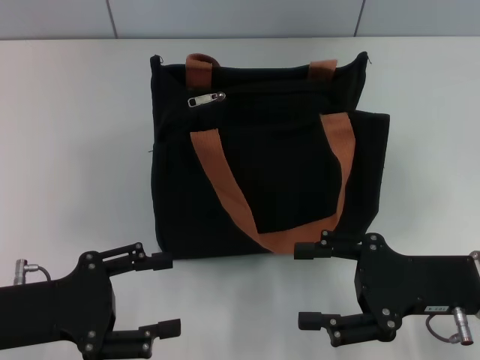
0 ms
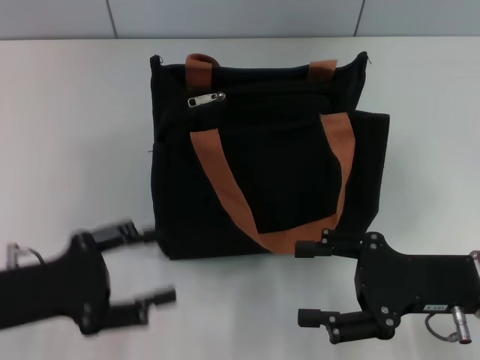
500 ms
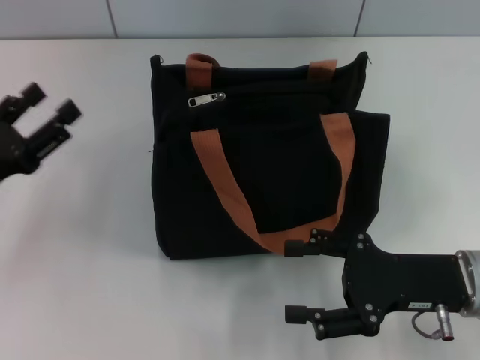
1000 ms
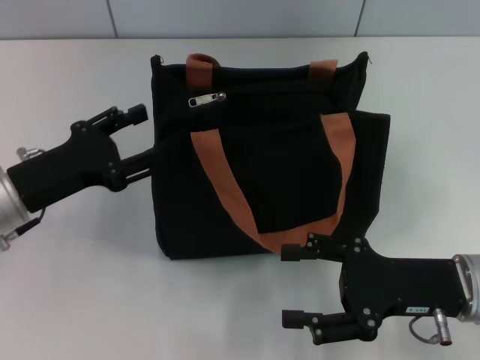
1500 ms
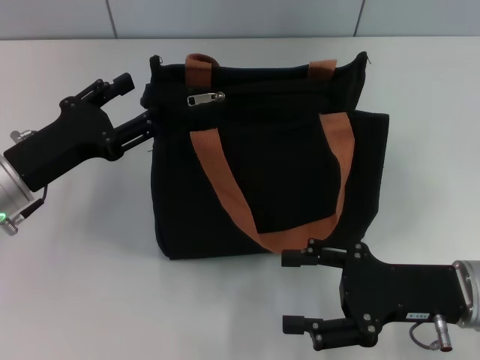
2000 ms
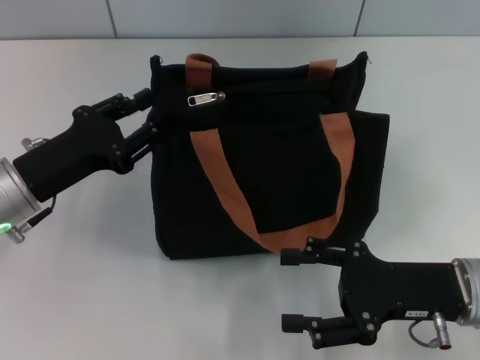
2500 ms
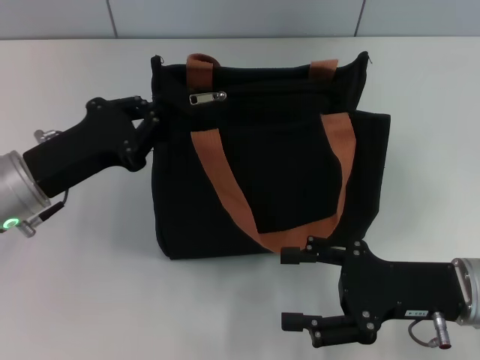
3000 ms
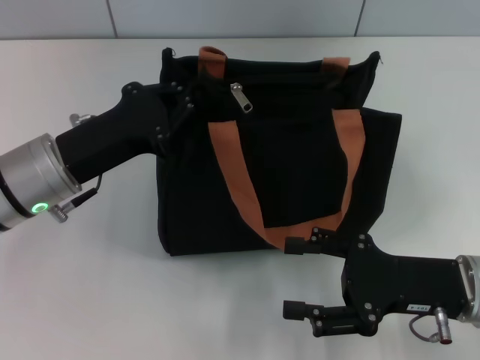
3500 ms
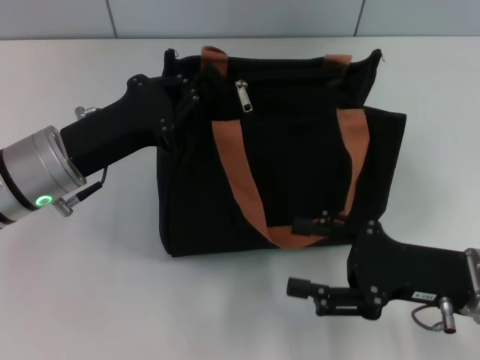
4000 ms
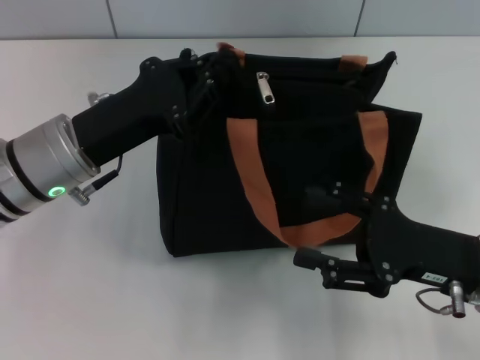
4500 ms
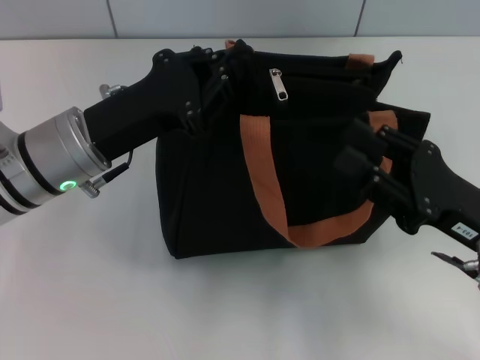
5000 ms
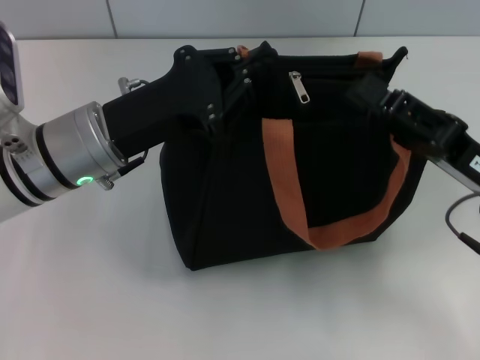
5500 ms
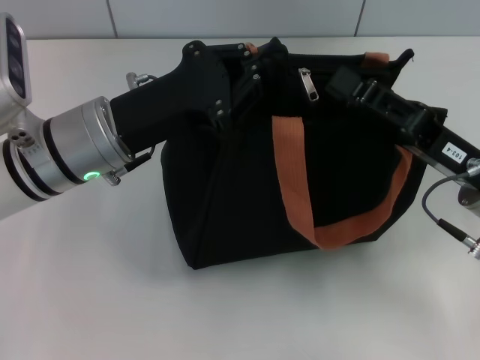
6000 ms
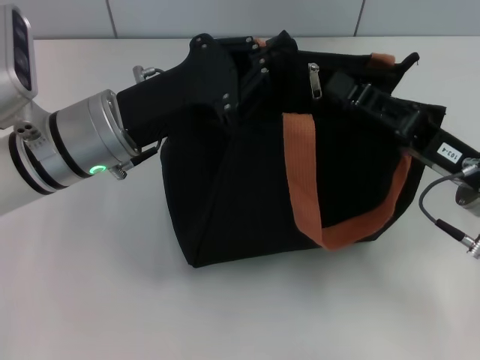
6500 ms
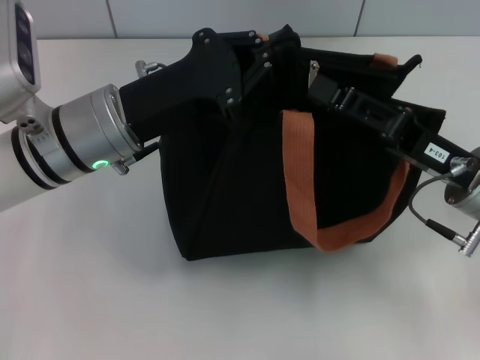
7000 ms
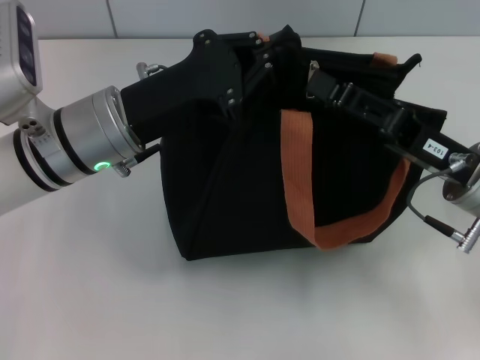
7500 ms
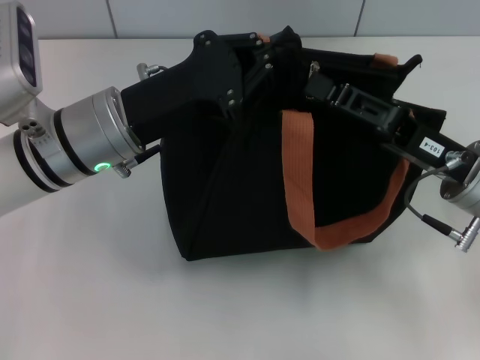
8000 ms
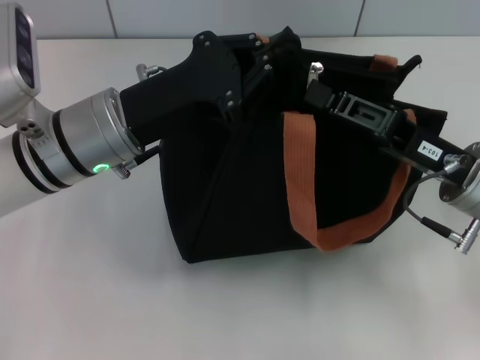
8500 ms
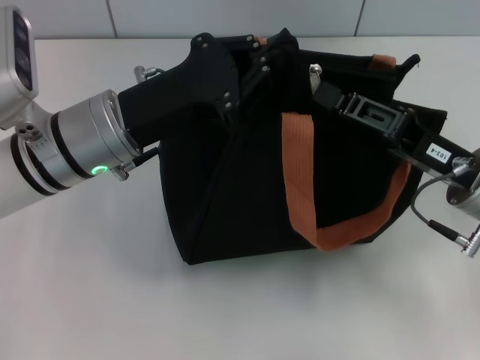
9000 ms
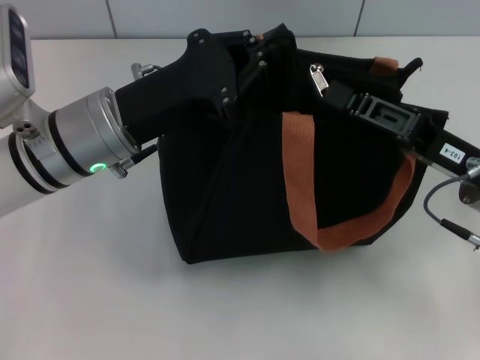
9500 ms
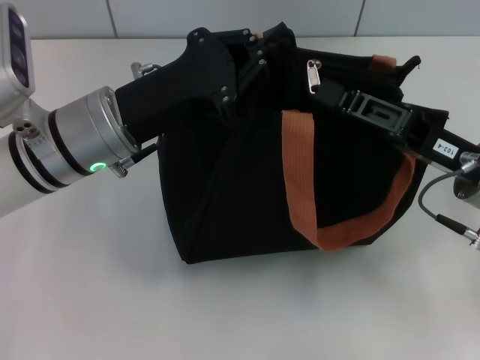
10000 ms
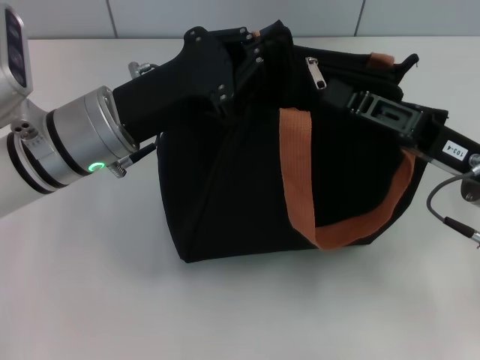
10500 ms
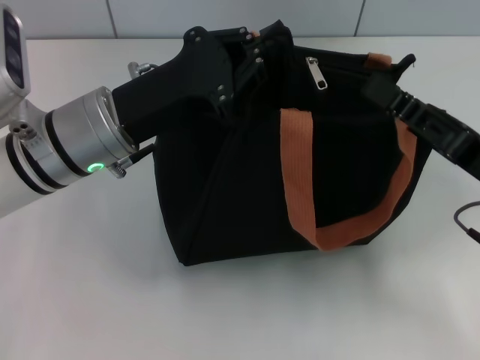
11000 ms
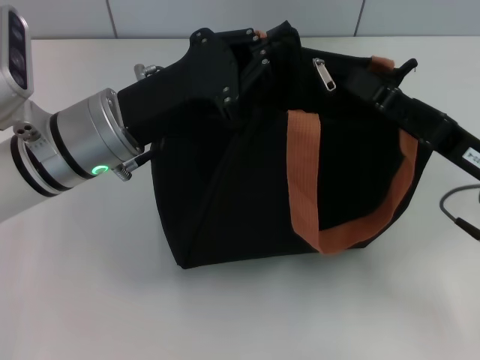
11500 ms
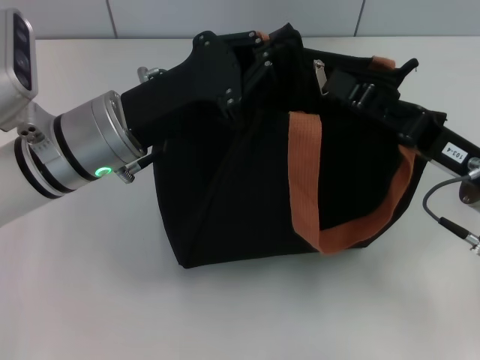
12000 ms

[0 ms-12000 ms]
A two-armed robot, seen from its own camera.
0 ms to 2000 ms: The left gripper is displaced forward by roughly 10 cm.
2000 ms to 4000 ms: The left gripper moves to the right, some 5 cm, and closes.
4000 ms to 6000 ms: The left gripper ends up about 5 cm from where it was. The right gripper ends up approximately 5 cm from where it was, and closes up.
6000 ms to 8000 ms: There are only small adjustments of the grippers.
8000 ms to 10000 ms: The right gripper closes its fingers.
10000 ms to 12000 ms: The right gripper opens its fingers.

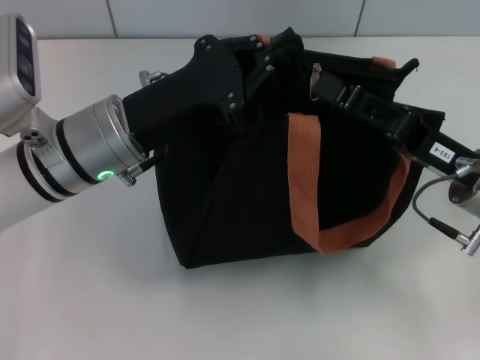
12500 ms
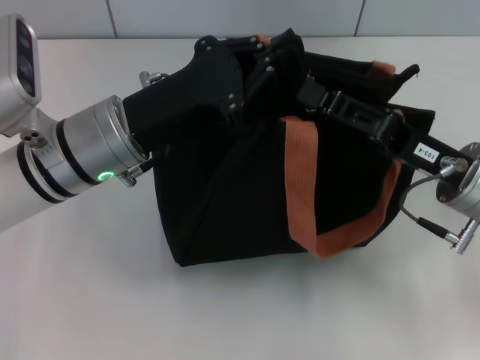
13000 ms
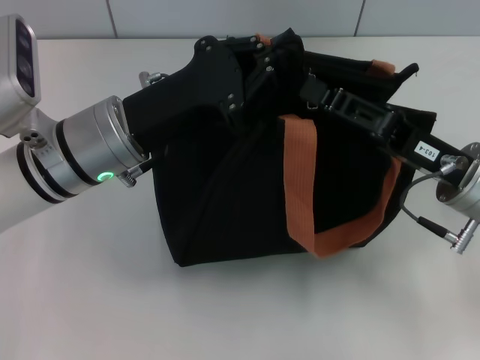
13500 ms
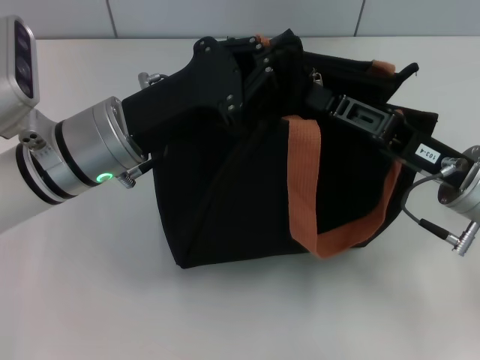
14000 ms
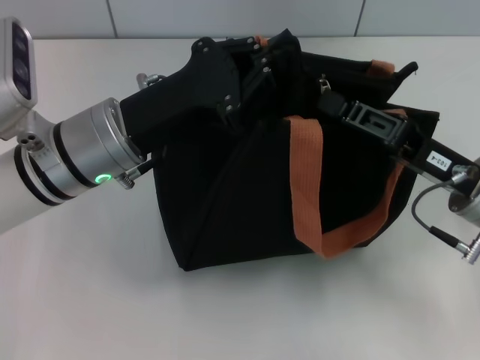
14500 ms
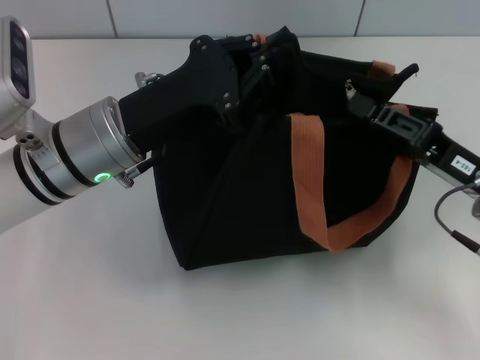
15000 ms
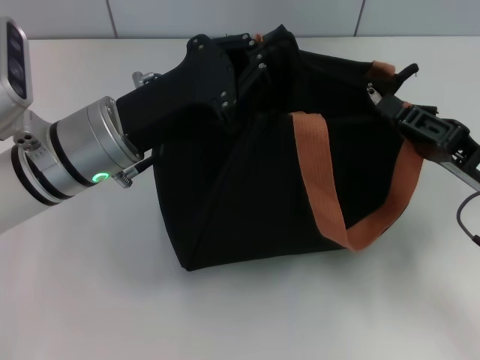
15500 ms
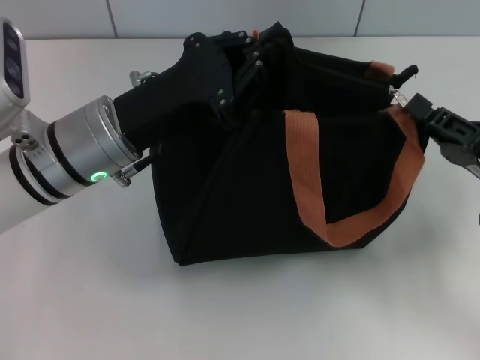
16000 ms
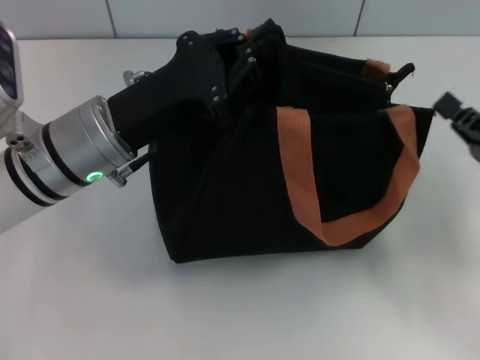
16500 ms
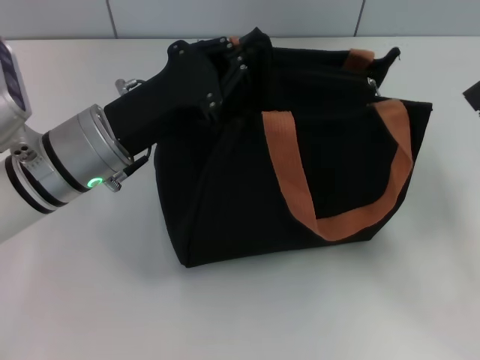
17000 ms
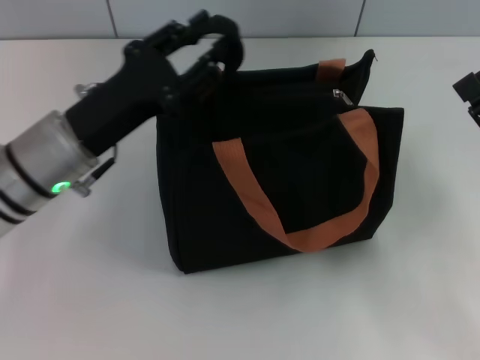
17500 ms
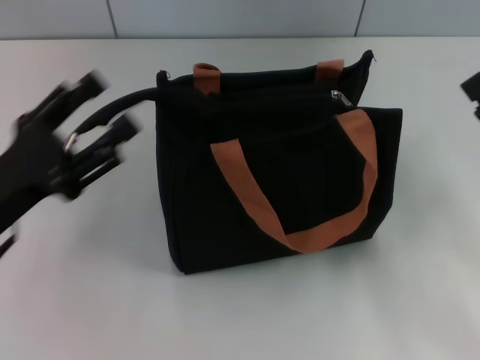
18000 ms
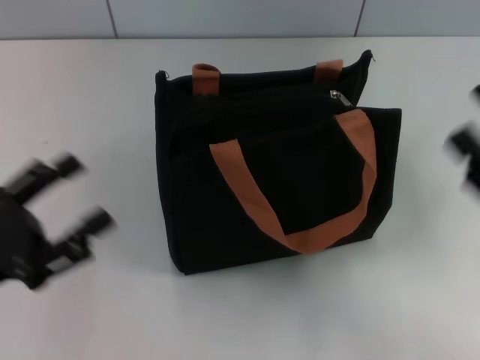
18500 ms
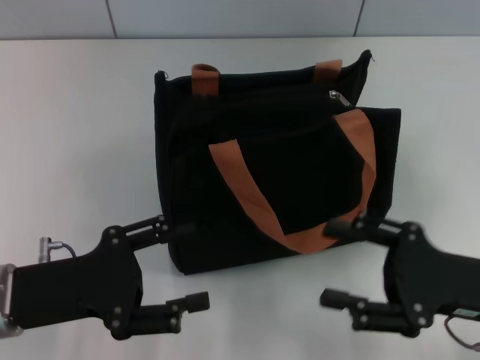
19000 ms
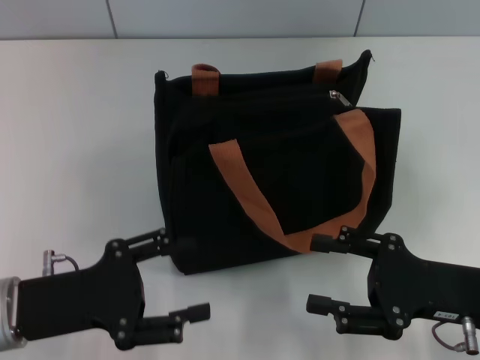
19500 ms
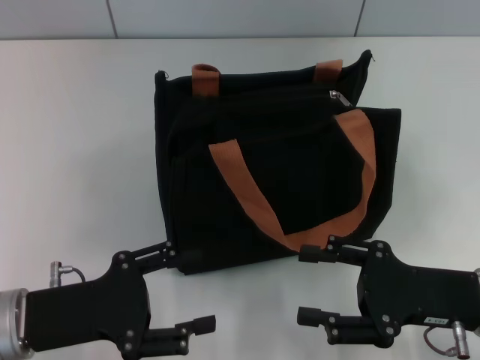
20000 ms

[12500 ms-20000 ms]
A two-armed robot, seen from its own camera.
Step, 12500 ms to 16000 ms: Pull up the zipper with your right hand.
Step, 16500 ms to 17000 ms: Grab the zipper with your left hand.
12500 ms to 14500 ms: The right gripper closes its fingers.
14500 ms to 16500 ms: The right gripper travels to the right by some 10 cm.
16500 ms to 18000 ms: The right gripper opens up. The left gripper travels to the left and backward by roughly 15 cm, and opens up.
18000 ms to 20000 ms: The right gripper goes about 5 cm to the left. The left gripper ends up approximately 5 cm from where it was.

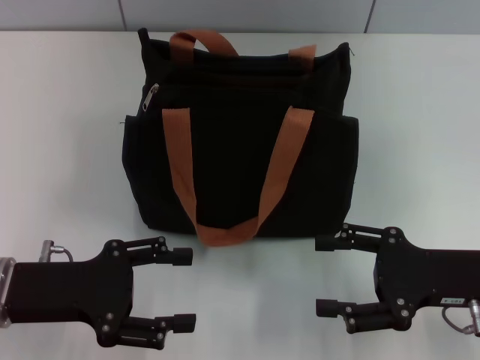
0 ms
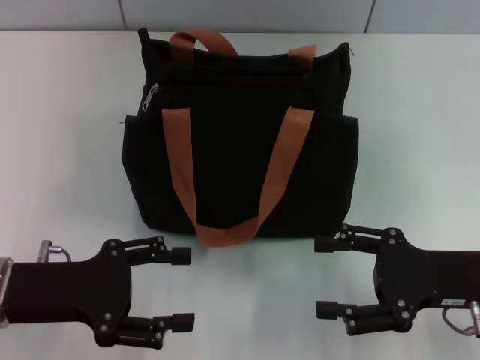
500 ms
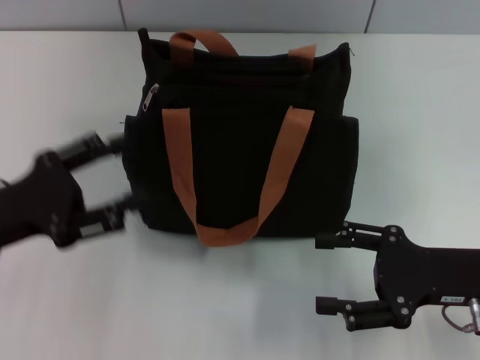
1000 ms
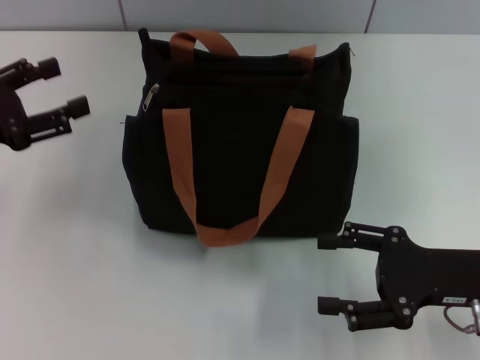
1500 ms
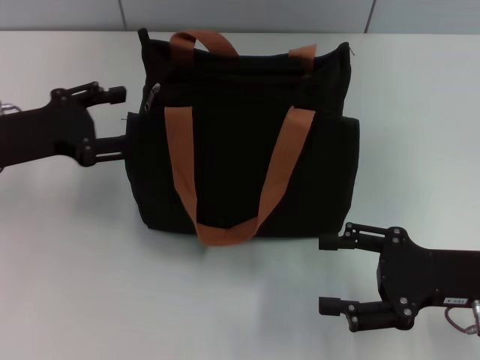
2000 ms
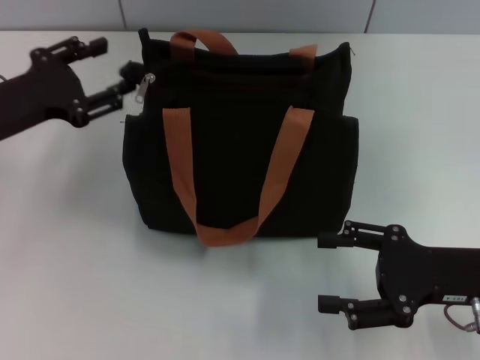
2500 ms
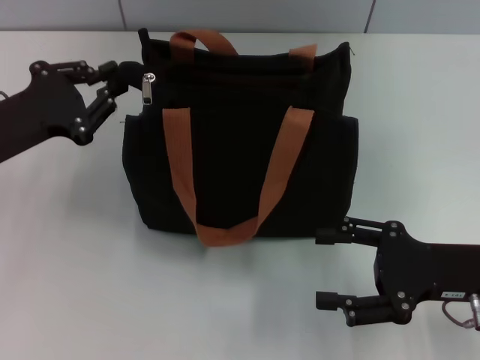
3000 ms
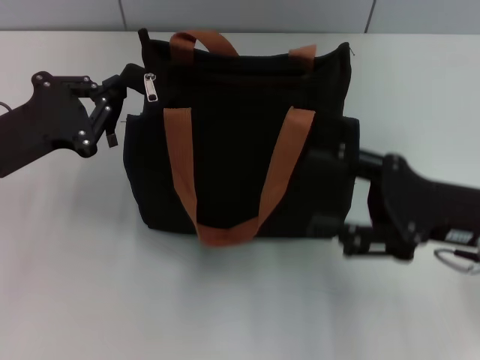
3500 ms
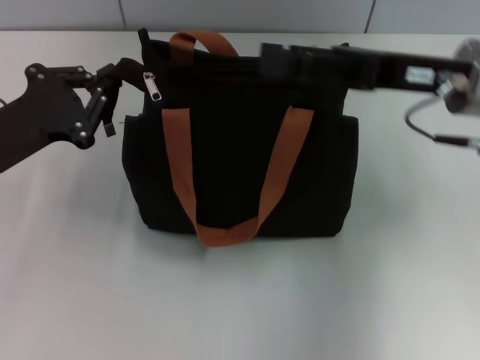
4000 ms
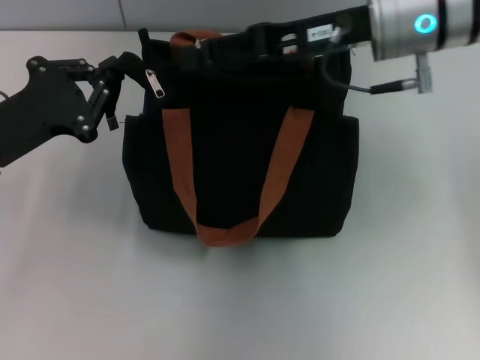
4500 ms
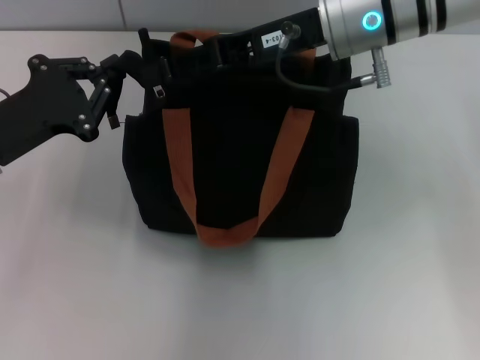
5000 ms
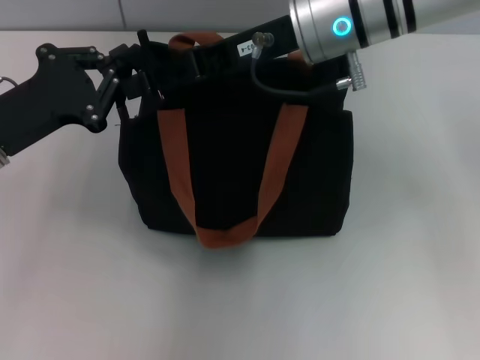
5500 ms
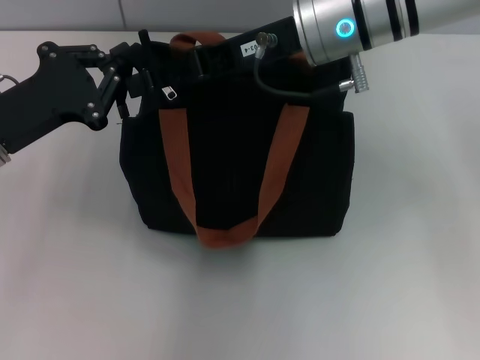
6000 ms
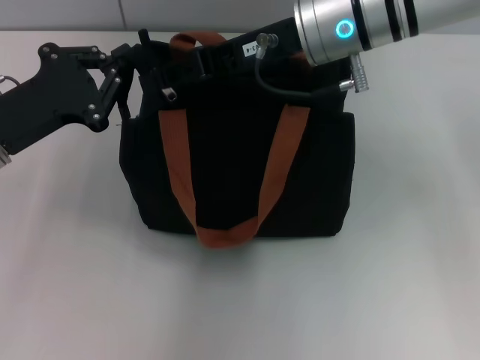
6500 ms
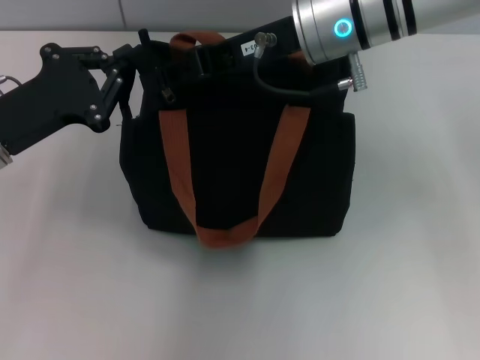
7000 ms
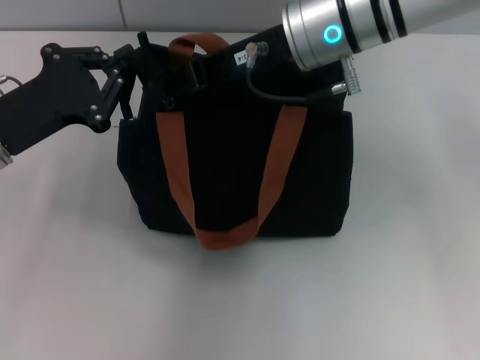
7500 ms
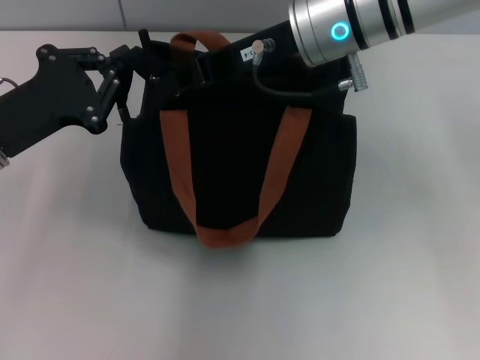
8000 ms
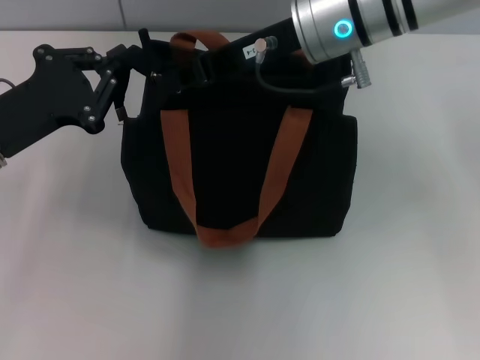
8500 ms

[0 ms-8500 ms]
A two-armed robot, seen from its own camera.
0 ms to 2000 ms: The left gripper heads forward, covering about 10 cm.
2000 ms to 4000 ms: The right gripper is displaced upward, forward and to the left by about 15 cm; the left gripper closes its fingers.
4000 ms to 6500 ms: The right gripper is displaced to the left and forward by about 15 cm.
6500 ms to 8500 ms: The right gripper closes up.
